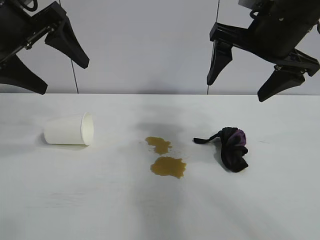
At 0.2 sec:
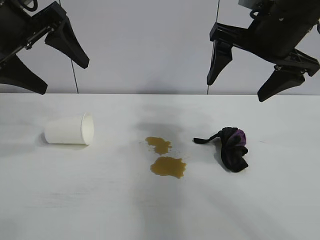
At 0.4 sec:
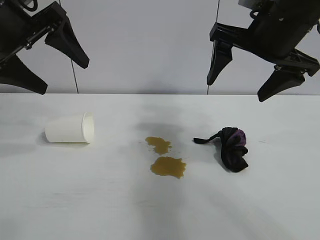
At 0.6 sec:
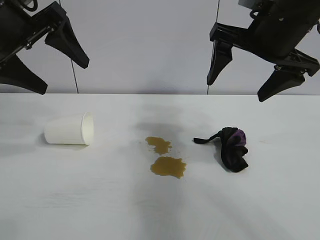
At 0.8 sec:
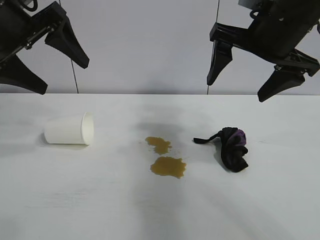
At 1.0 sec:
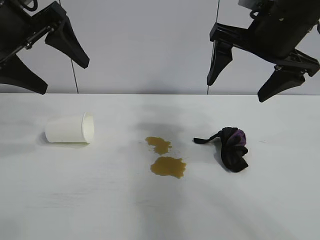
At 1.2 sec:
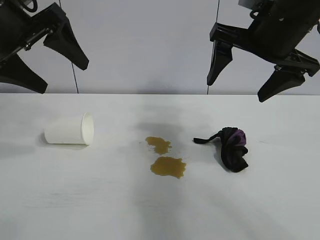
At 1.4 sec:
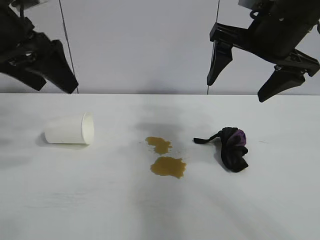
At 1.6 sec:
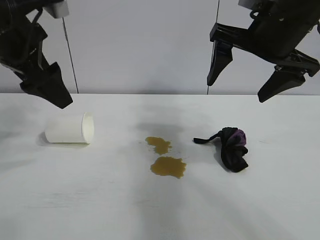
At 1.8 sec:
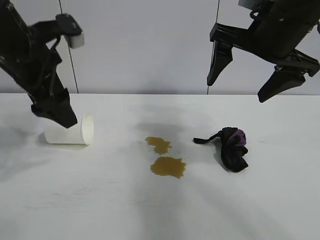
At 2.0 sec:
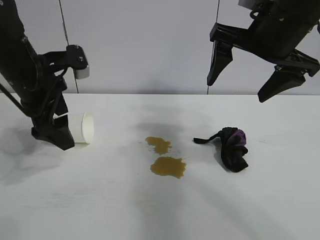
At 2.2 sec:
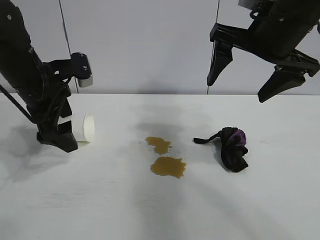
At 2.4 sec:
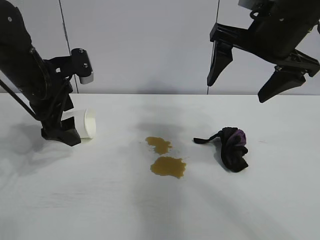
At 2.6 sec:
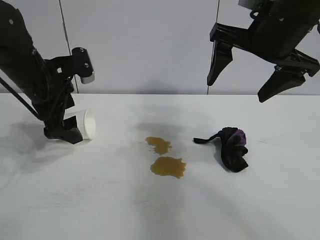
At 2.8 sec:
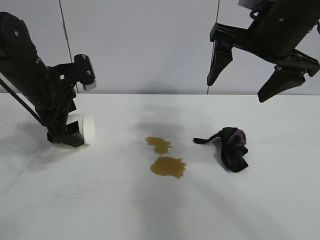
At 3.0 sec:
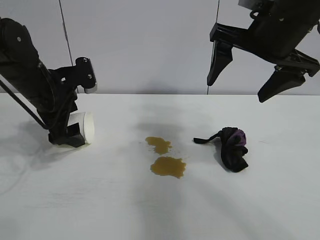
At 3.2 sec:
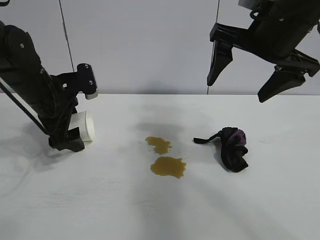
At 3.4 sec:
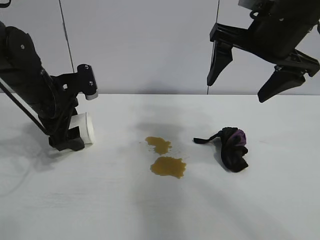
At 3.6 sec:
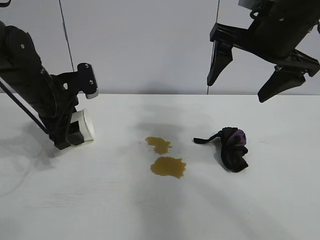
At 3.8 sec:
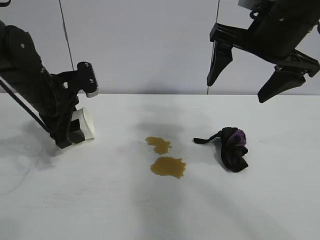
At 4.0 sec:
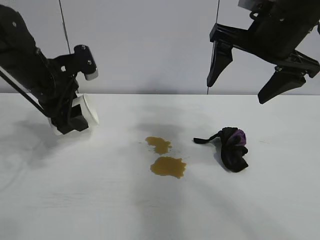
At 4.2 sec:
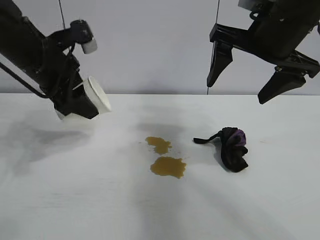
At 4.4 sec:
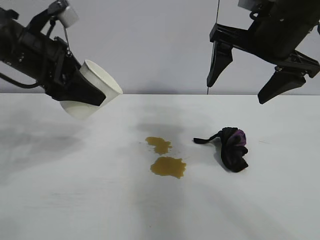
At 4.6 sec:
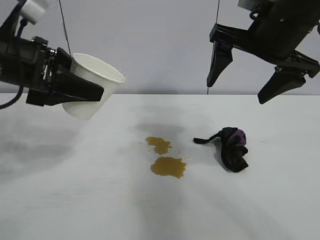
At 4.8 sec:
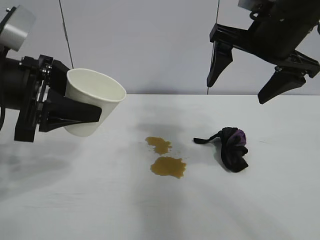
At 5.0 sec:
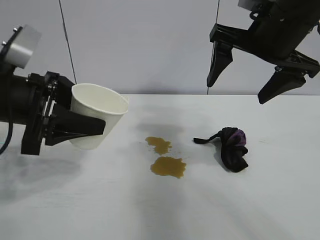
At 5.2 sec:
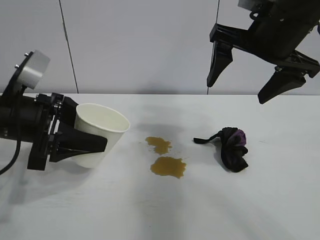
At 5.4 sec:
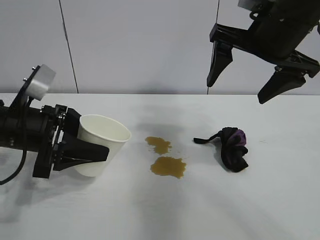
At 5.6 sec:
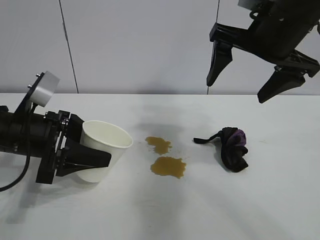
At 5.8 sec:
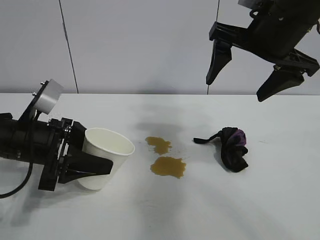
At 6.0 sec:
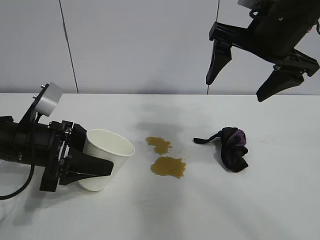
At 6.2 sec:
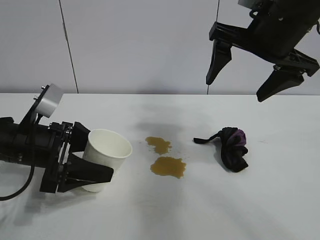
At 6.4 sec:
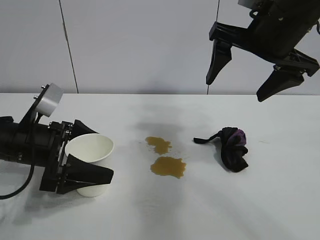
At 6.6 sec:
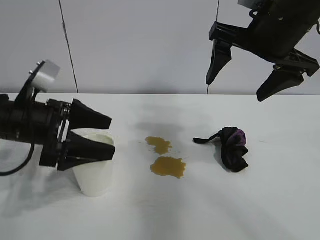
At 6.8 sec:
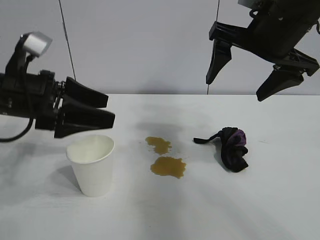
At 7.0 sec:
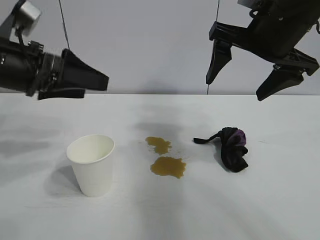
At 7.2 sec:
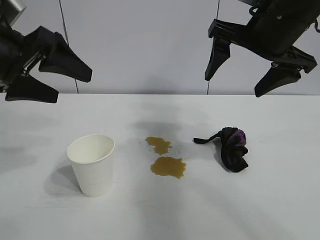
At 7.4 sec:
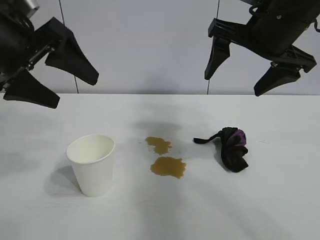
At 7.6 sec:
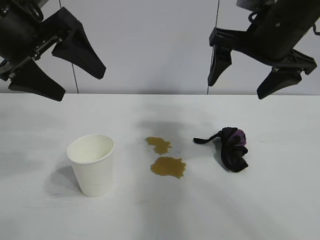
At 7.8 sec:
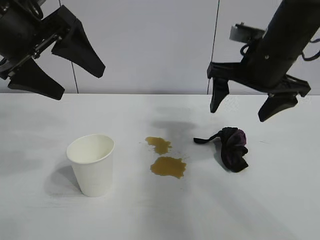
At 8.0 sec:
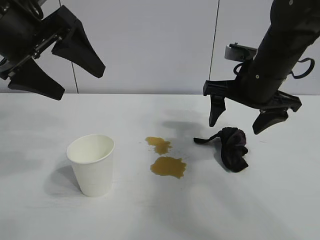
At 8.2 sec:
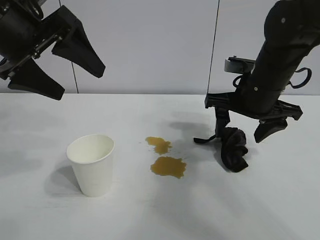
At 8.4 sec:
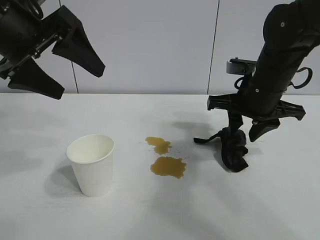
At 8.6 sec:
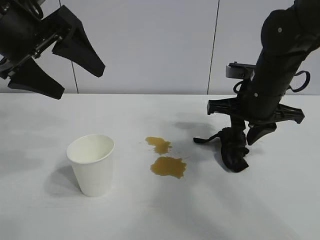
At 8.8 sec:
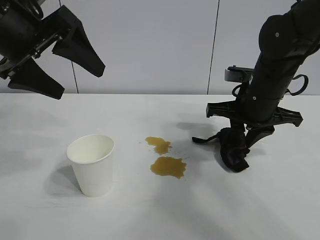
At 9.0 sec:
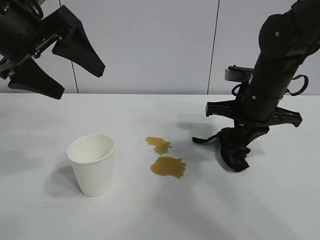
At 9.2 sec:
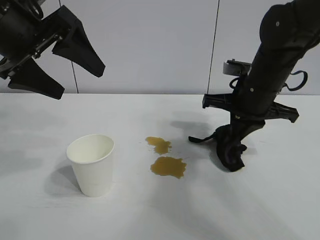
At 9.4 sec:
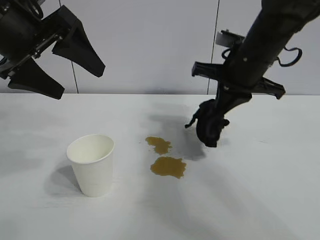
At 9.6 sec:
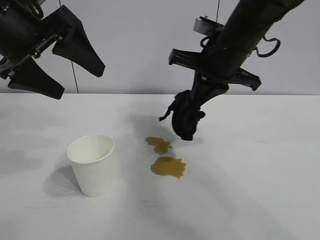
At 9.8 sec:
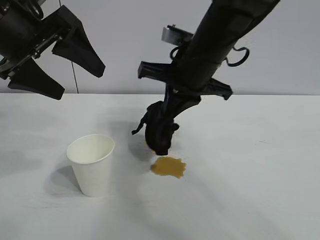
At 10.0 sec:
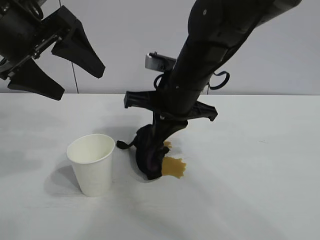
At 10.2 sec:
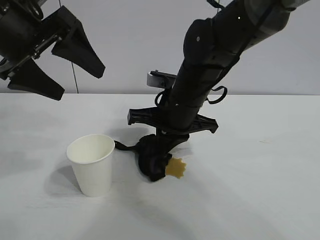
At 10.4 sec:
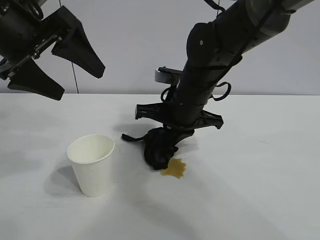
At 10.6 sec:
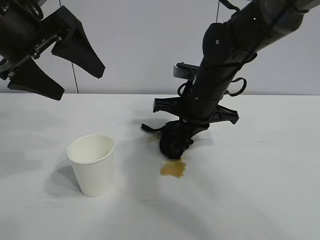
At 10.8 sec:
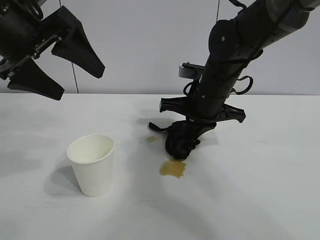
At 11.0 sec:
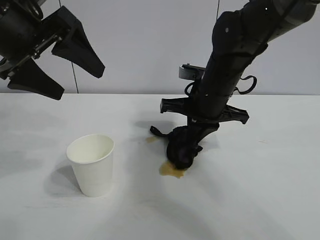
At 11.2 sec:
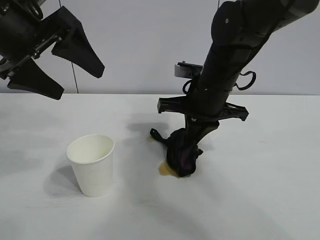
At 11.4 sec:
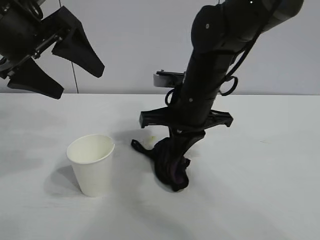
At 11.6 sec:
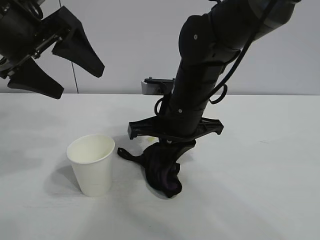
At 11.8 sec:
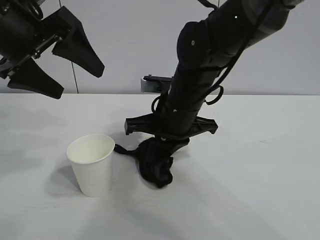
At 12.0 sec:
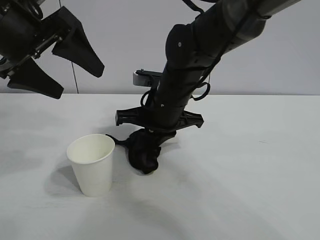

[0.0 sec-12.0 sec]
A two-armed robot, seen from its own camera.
Task of the whole recording: the left gripper pick up the fallen cup and place it upright, the right gripper grasp the black rag and wipe the stain on the table, the right gripper put the black rag back in its original position.
Step, 1.2 sec to 3.6 sec: Grasp the paper cup with left gripper.
Step, 3.8 sec to 6.4 sec: Stand the paper cup upright with left gripper.
Step, 6.6 sec to 9.0 sec: Grasp the rag with right gripper.

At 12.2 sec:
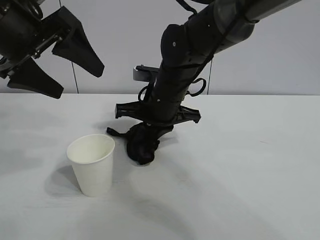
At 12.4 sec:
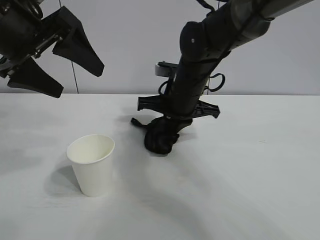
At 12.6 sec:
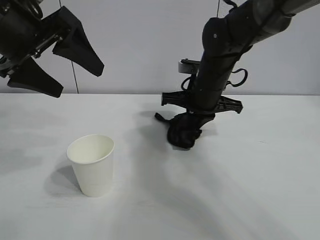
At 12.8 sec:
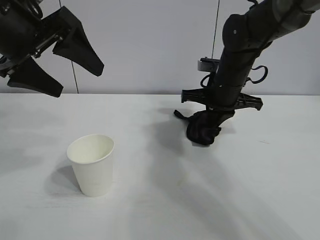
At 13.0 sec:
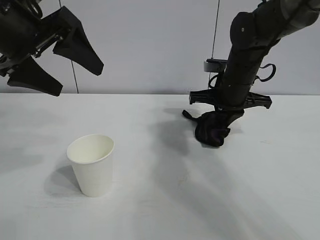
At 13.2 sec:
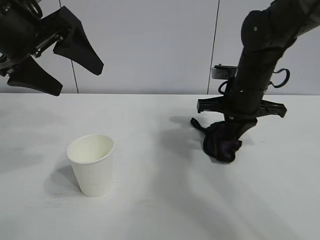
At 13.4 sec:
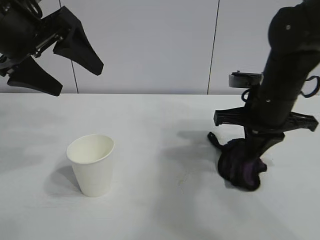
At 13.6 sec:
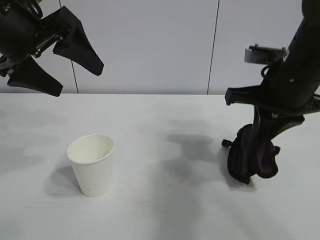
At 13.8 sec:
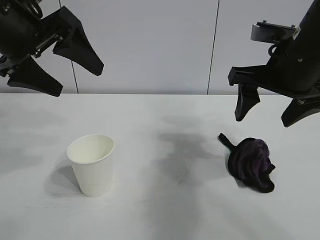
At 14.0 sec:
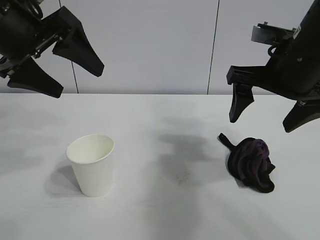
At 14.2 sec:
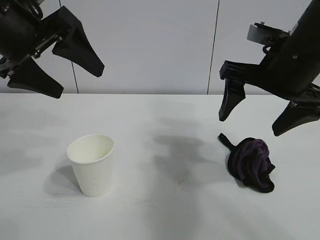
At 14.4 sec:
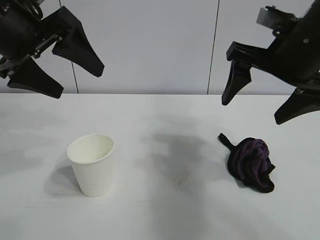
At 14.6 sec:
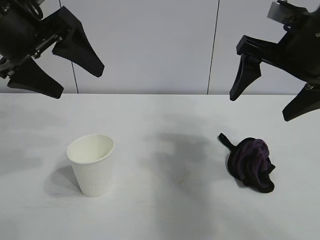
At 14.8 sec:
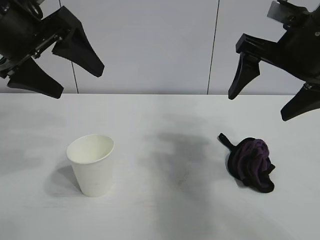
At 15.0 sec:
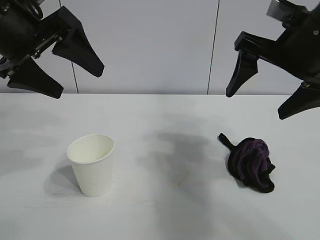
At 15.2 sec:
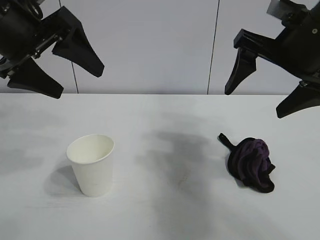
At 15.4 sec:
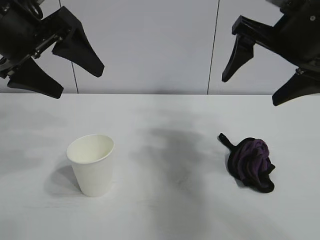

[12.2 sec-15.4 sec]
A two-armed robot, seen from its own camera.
Task of the whole recording: the left gripper pick up the fallen cup and place it upright, the right gripper grasp the black rag and wipe the stain on the table, the right gripper put the black rag back in its original position.
Step, 13.4 sec to 13.6 sec: Place the rag on the table with right gripper.
